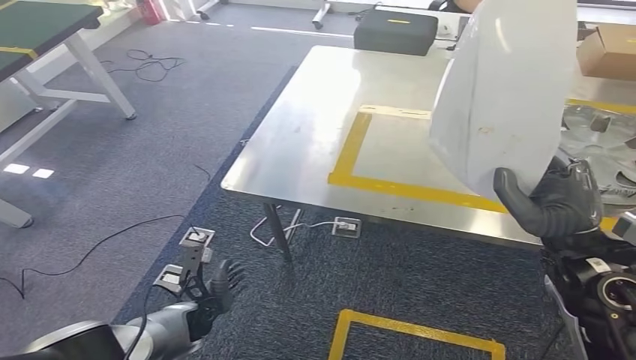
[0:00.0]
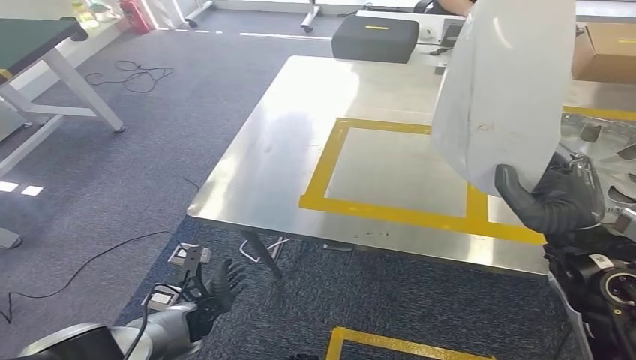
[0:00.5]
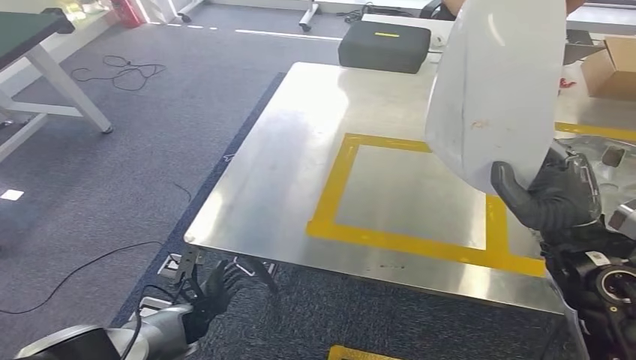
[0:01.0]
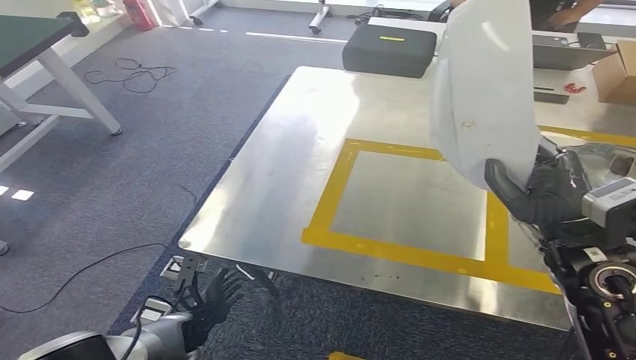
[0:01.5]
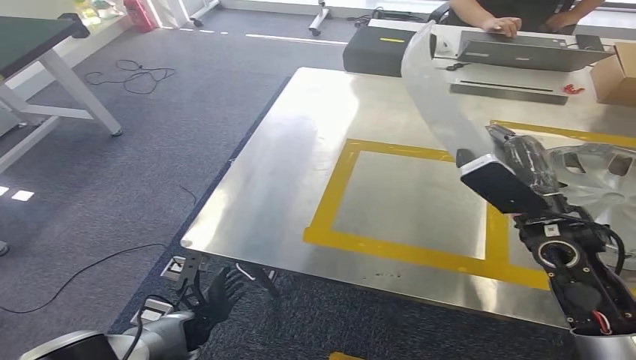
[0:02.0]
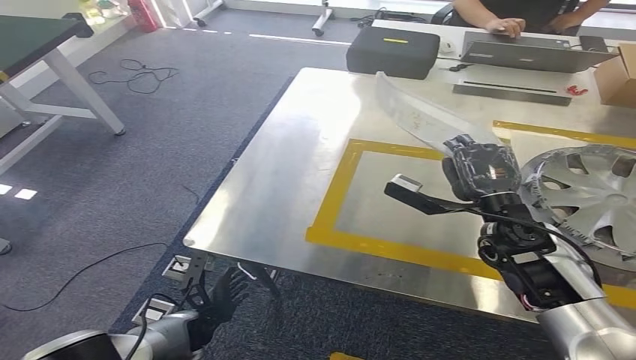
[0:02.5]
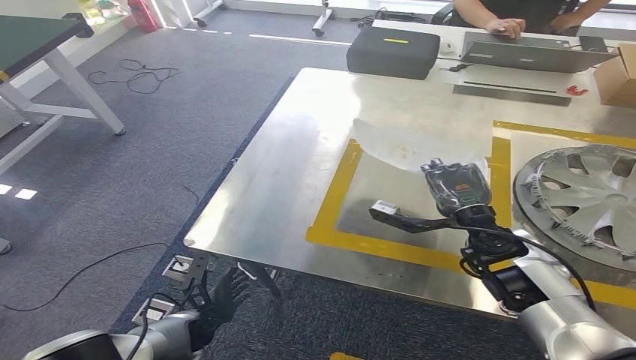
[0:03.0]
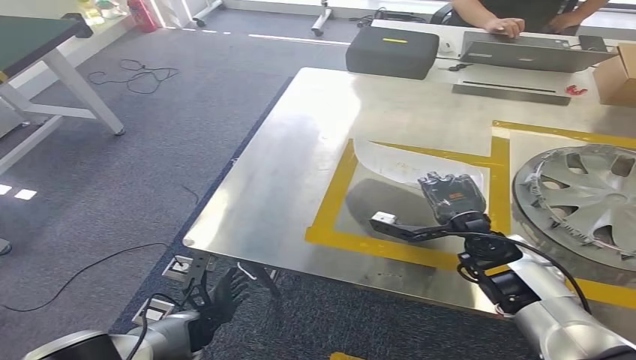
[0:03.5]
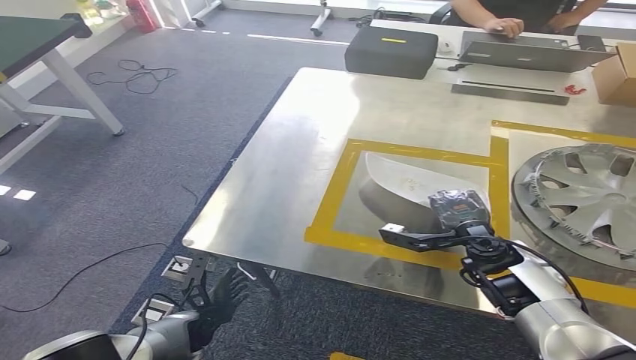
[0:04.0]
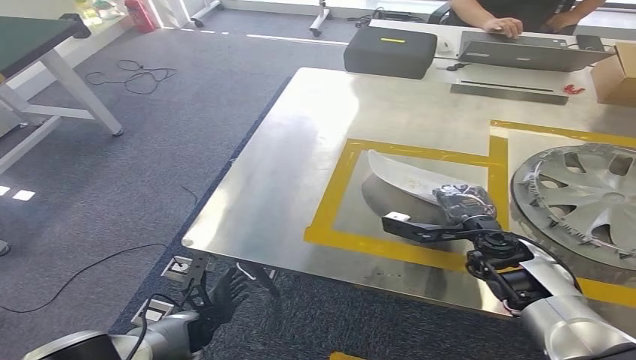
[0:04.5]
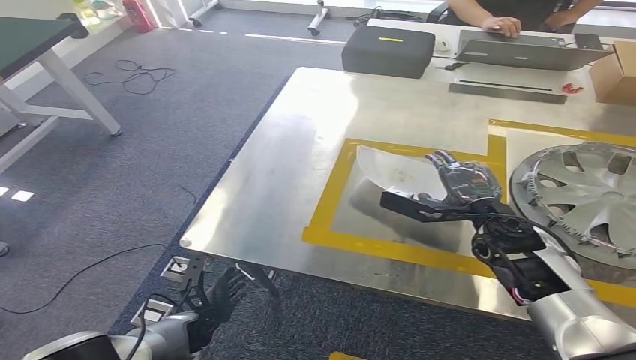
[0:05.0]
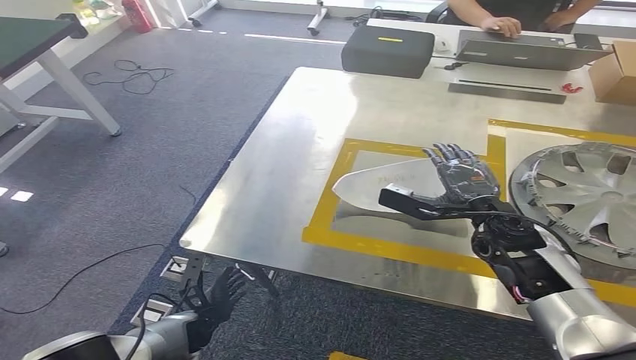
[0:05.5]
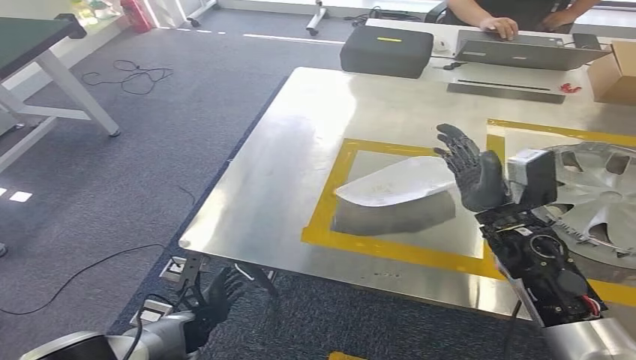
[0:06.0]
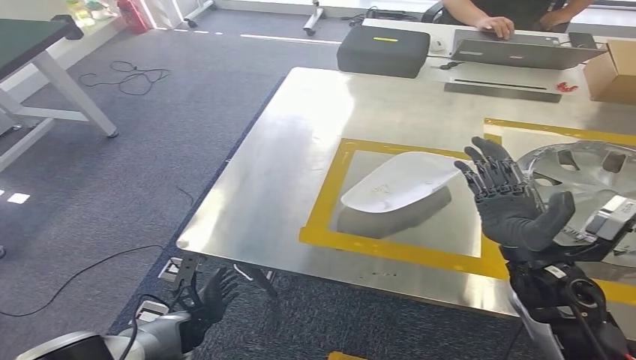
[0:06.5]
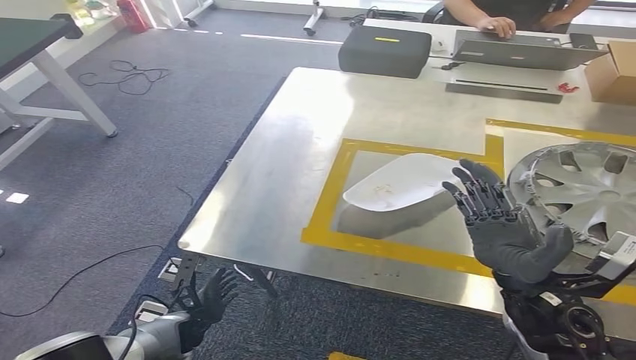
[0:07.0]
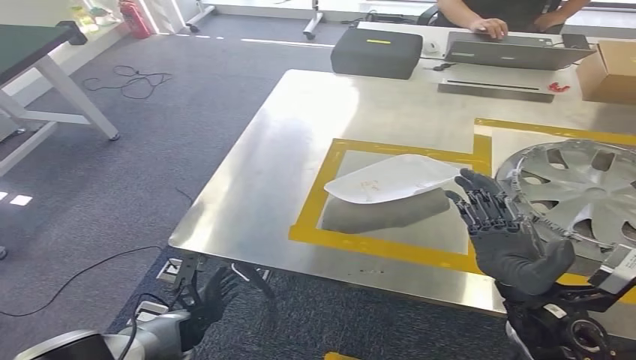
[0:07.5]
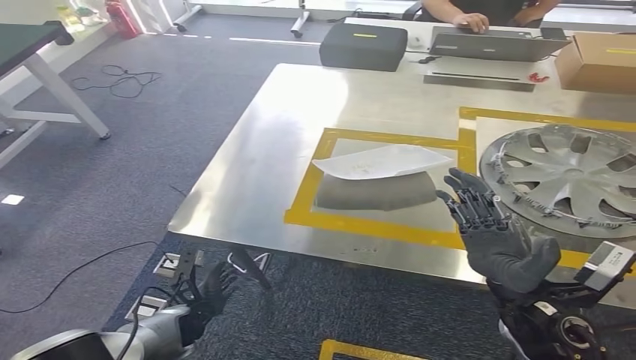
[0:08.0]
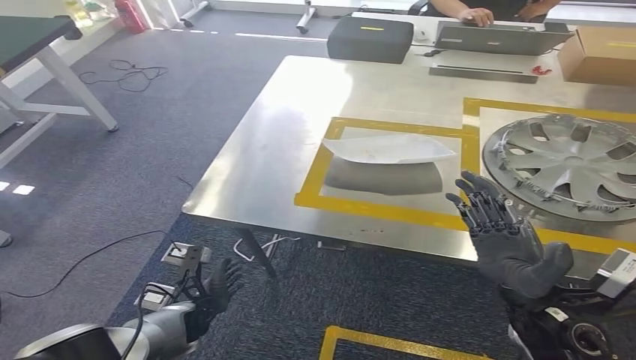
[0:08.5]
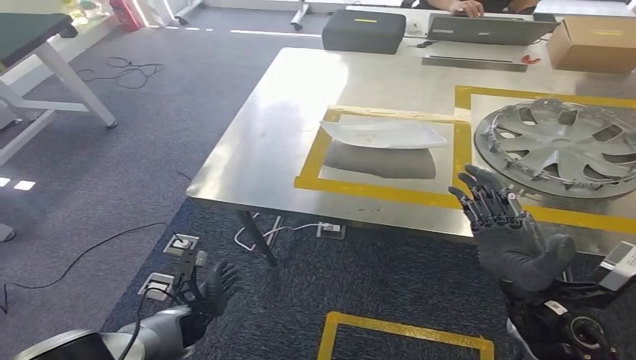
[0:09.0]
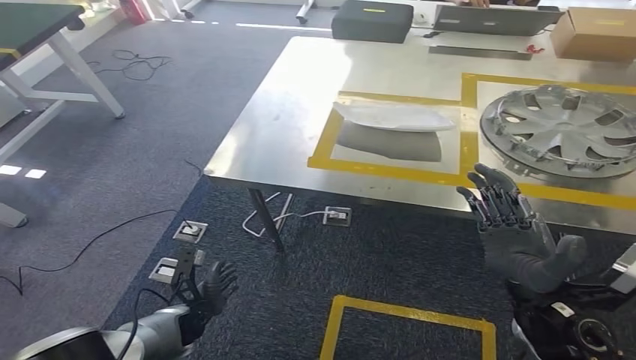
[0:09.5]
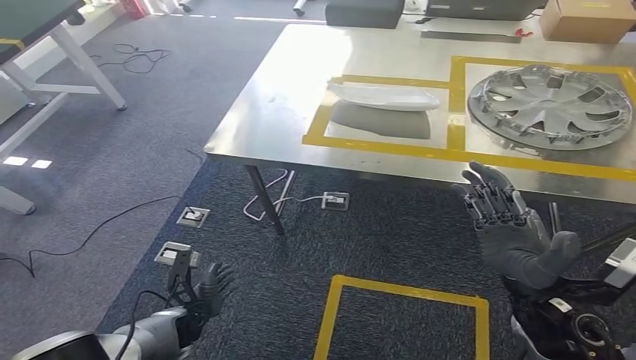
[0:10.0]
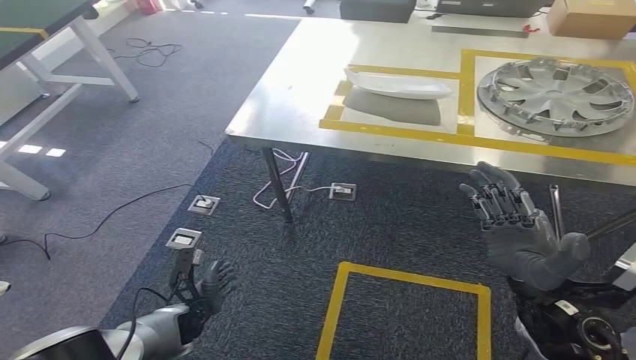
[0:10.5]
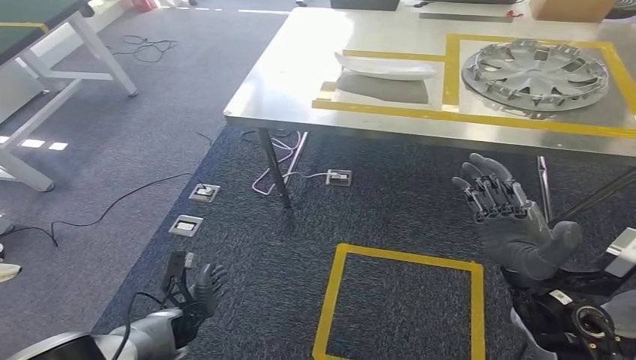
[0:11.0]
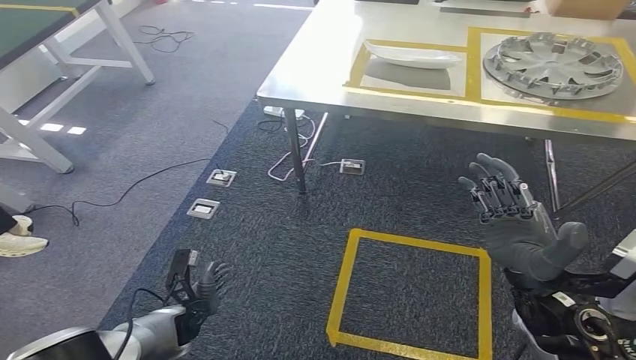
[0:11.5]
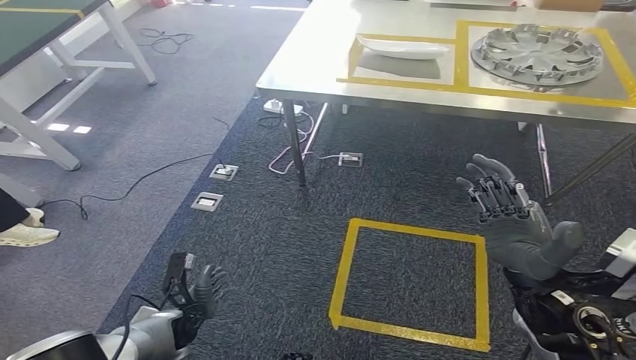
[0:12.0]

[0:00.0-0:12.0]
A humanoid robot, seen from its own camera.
Step, 0:02.0 to 0:07.0: Insert the small component into the corresponding slot on the workbench.
0:02.0 to 0:04.0: The right hand travels downward by roughly 10 cm.
0:04.0 to 0:06.0: The right hand shifts some 5 cm upward.

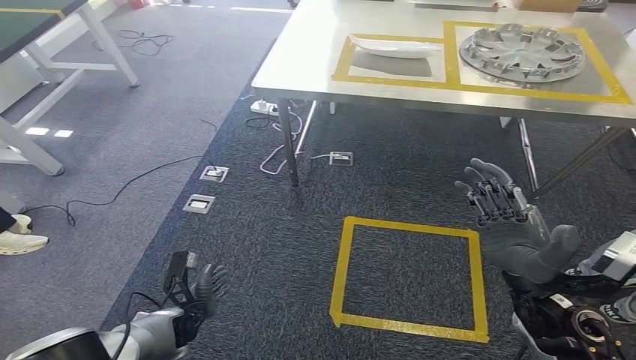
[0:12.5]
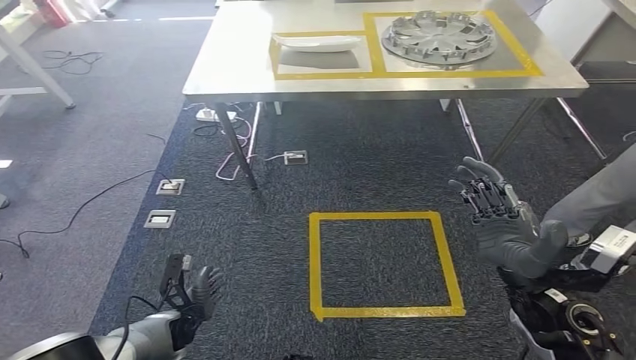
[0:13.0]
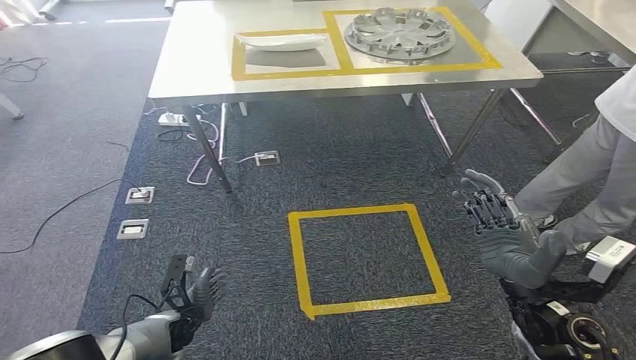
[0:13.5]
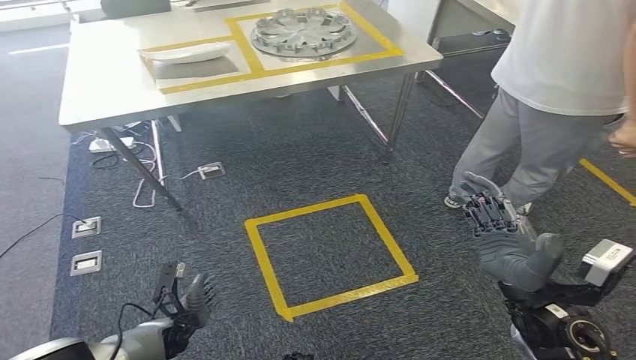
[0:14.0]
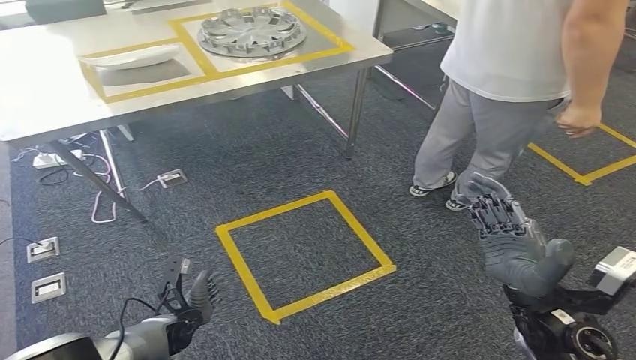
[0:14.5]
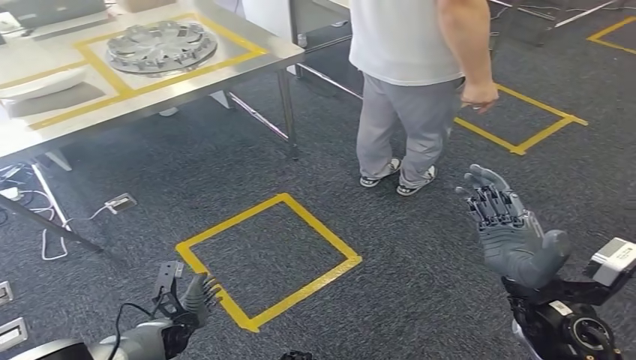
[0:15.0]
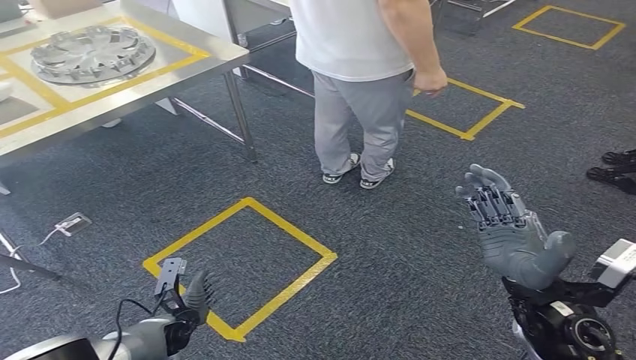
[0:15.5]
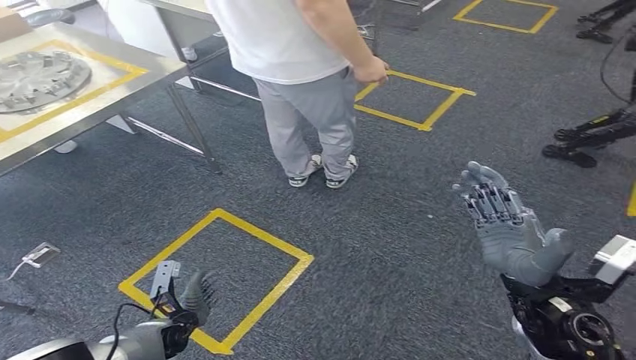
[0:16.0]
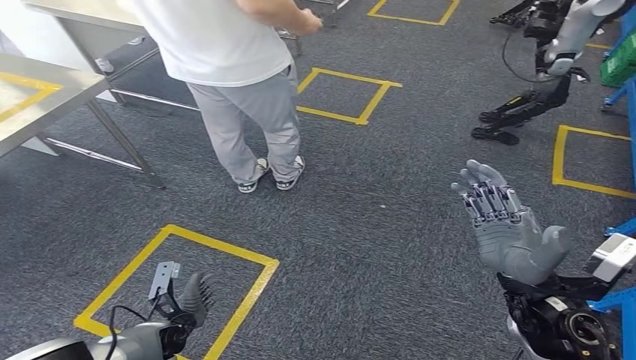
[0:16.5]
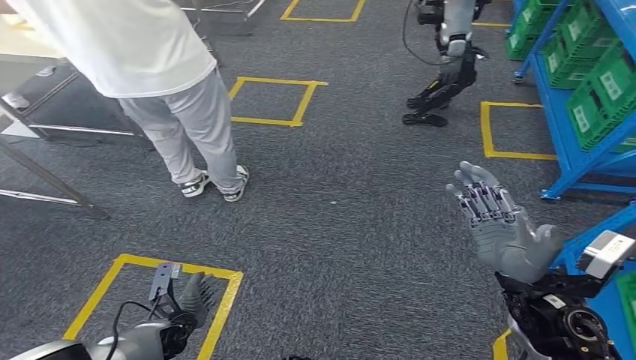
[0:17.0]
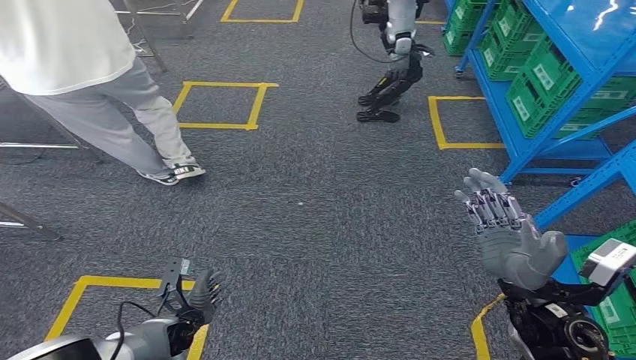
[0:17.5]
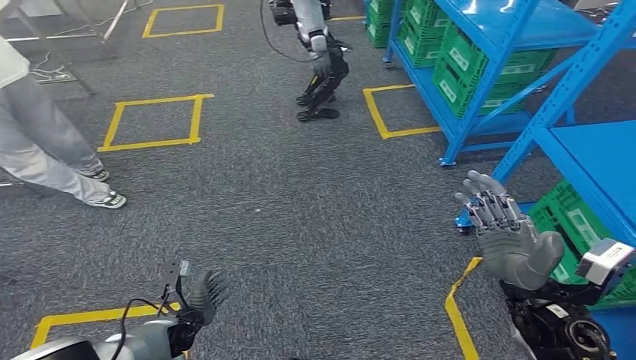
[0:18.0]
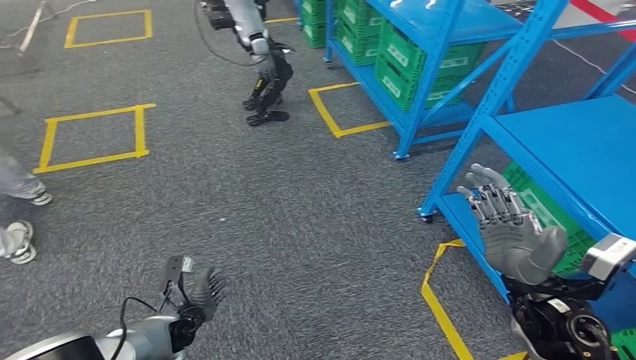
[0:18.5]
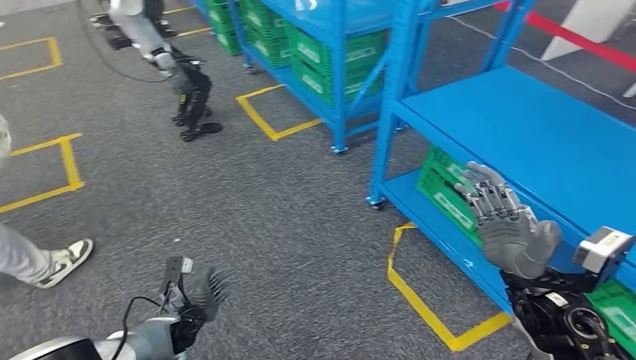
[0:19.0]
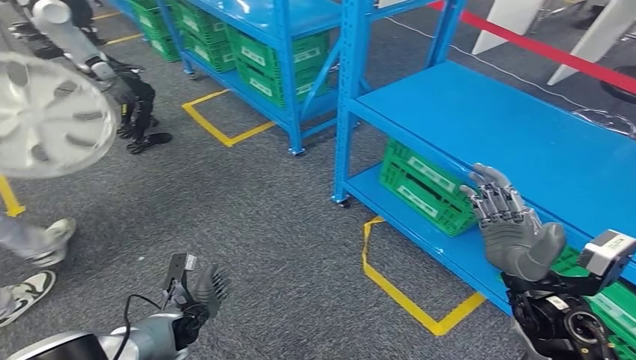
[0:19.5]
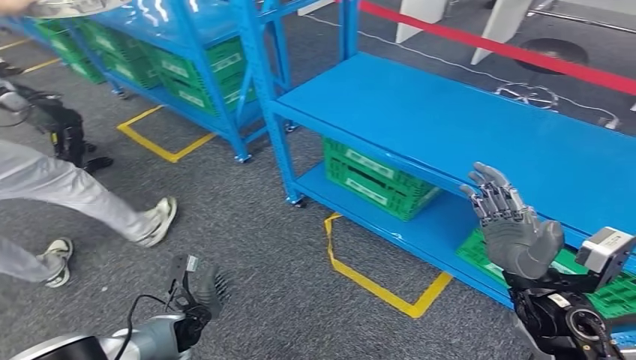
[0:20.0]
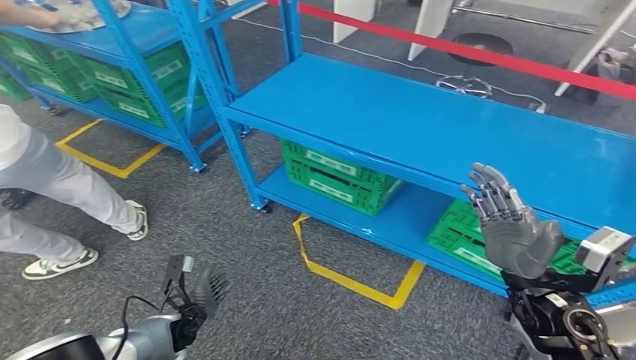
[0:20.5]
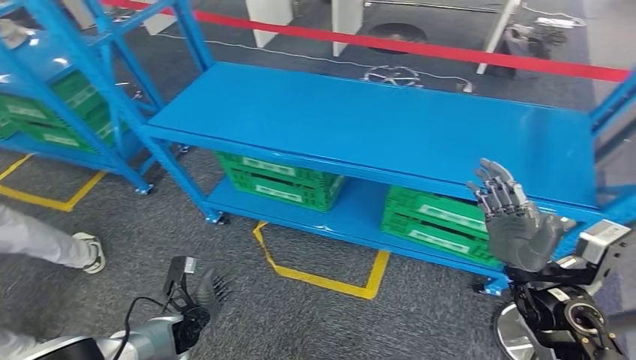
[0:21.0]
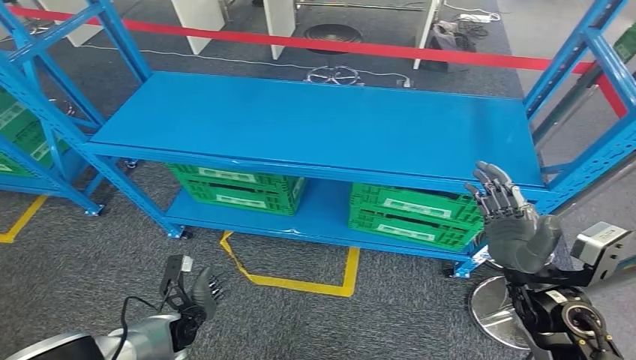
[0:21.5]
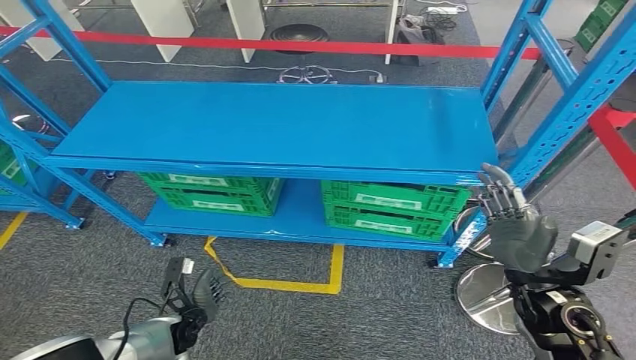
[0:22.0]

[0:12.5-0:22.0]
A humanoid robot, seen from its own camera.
Step, 0:12.5 to 0:22.0: Return to the initial position at the workbench.
